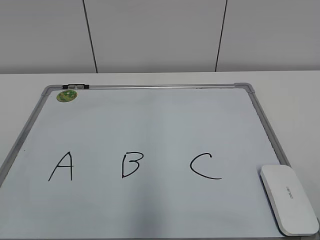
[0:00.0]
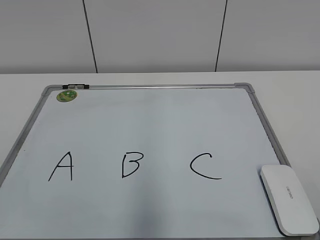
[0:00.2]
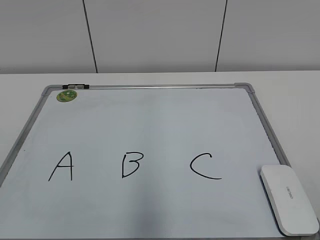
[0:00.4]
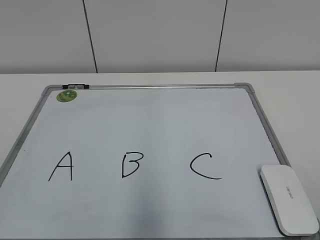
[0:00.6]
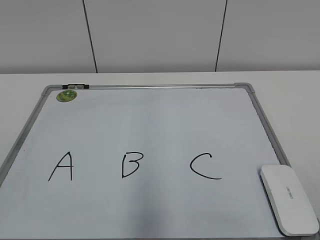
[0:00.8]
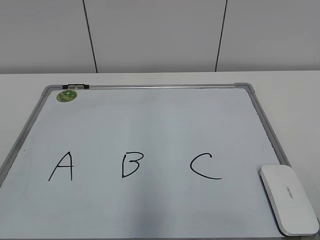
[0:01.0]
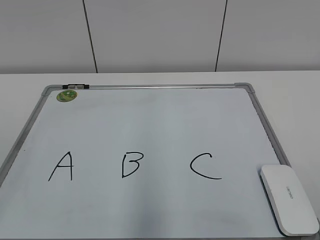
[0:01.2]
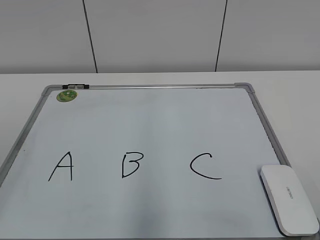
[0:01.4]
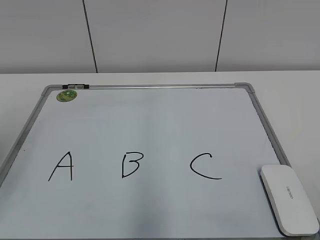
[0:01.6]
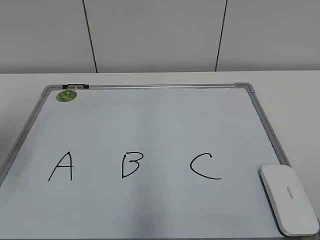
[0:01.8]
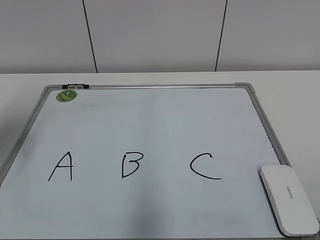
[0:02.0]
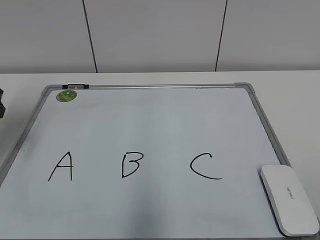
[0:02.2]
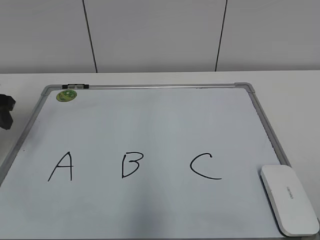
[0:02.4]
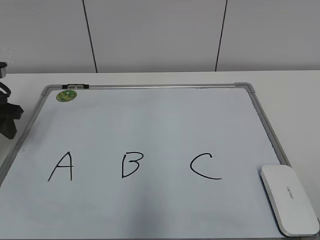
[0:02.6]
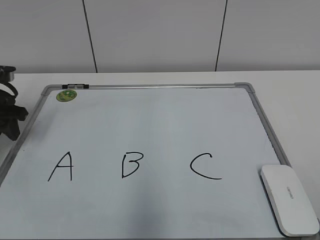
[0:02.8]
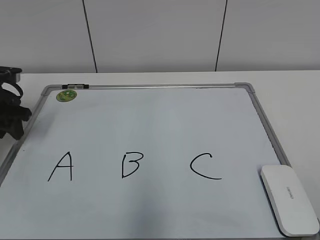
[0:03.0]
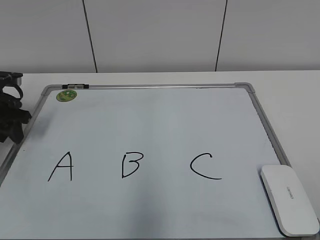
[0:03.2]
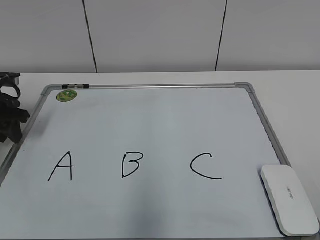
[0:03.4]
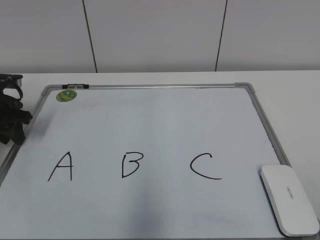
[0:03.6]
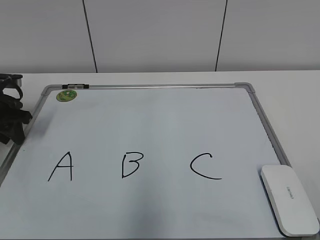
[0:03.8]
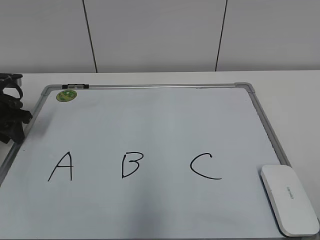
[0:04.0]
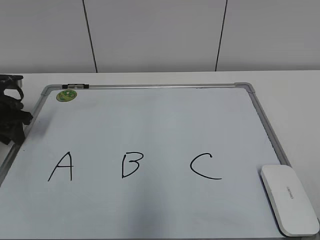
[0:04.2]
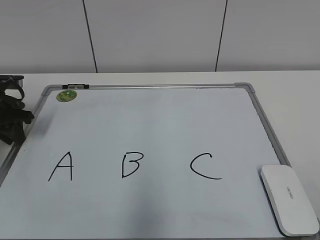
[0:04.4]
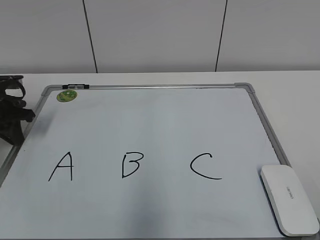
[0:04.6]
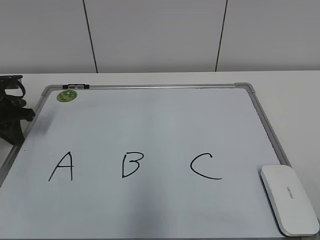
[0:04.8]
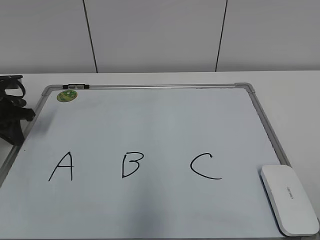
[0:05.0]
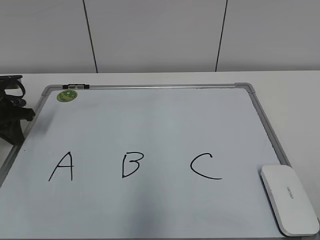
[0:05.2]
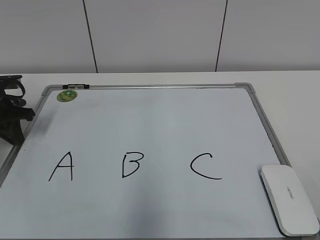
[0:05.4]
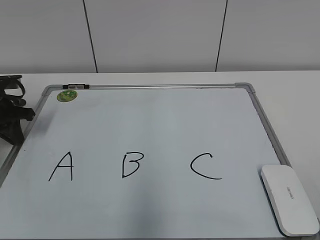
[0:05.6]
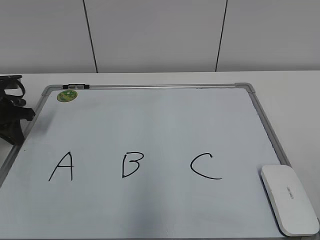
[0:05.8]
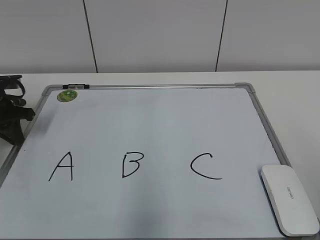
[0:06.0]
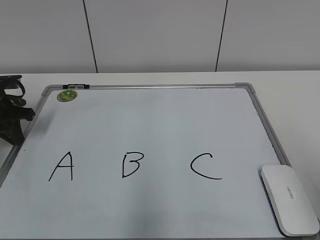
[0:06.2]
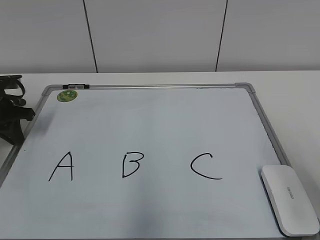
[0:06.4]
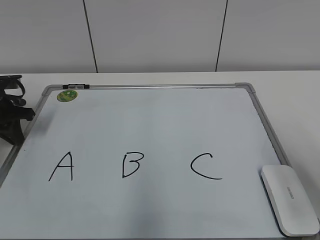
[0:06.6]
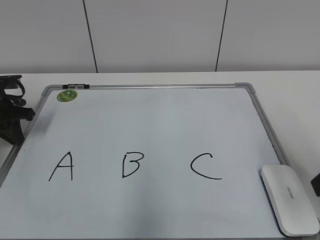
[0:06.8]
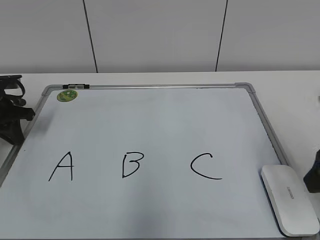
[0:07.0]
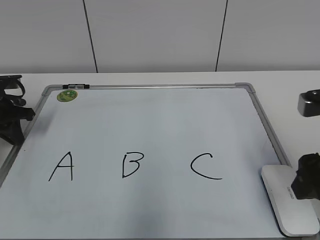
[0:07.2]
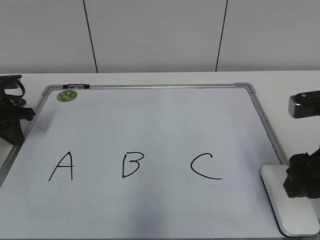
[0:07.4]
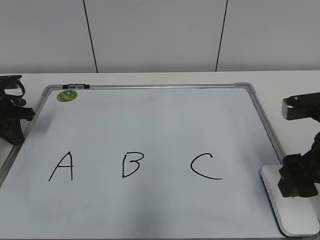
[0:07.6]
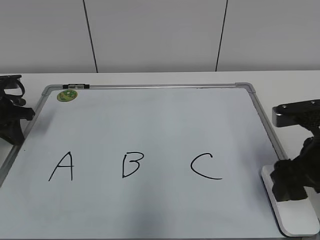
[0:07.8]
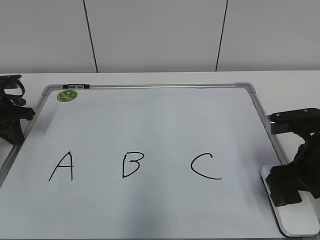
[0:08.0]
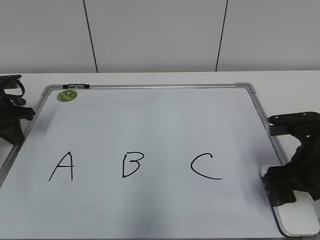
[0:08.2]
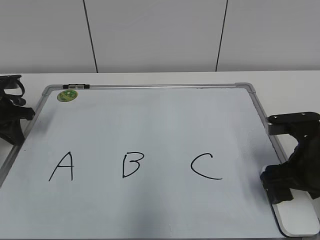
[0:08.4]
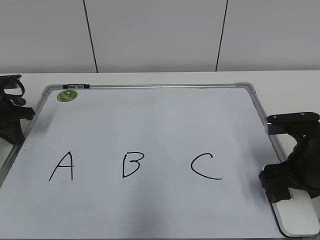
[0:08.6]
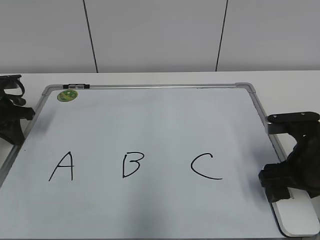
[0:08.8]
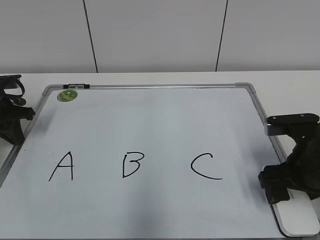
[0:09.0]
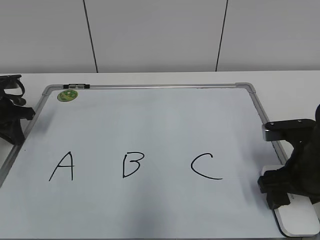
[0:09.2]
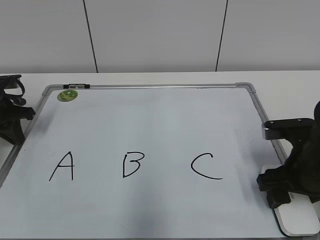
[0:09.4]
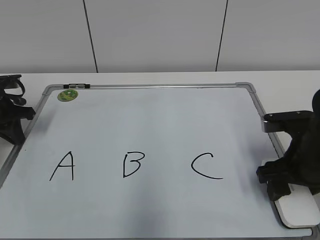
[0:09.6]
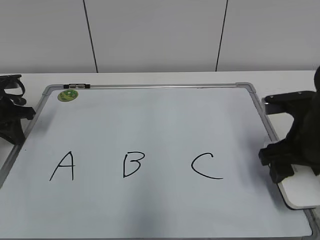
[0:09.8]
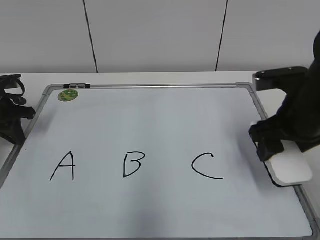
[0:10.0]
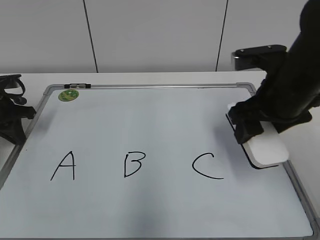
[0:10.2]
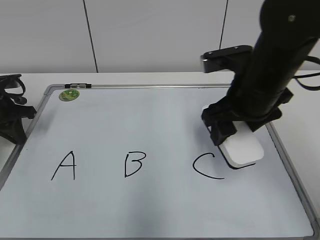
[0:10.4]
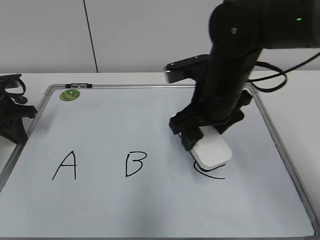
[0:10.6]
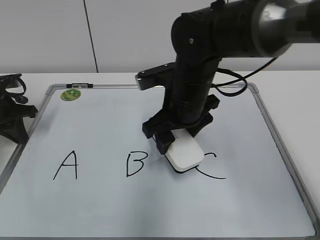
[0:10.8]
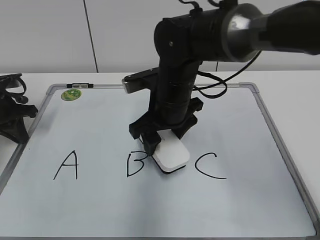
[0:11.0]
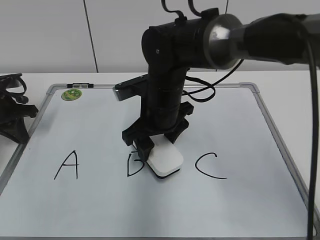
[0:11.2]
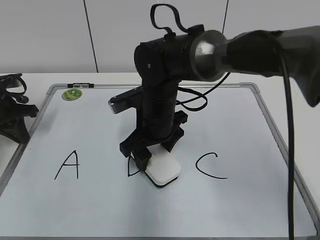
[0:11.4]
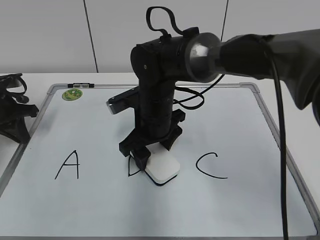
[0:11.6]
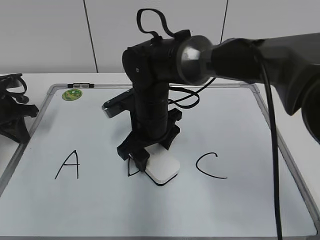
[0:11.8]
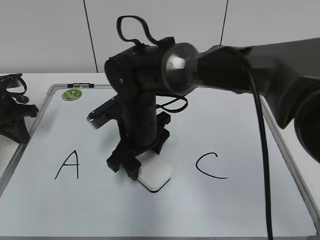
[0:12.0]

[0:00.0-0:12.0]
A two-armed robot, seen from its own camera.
Task of the whole recording: pick up the eraser on the blackboard and erase the letter "B".
Step, 0:05.4 to 0:09.2: Grab the eraser with your right hand.
0:01.6 to 0:03.0: The left gripper shifts roughly 25 cm forward and downward, and closes its fingers.
0:03.0 to 0:04.4: The grippers move only a little.
0:06.0 to 0:07.6: The right gripper is displaced forward and downward by approximately 20 cm.
0:07.6 to 0:09.0: The right gripper travels downward by roughly 5 cm.
0:09.0 to 0:10.4: The right gripper is displaced upward, to the left and forward by about 15 cm.
0:10.4 to 0:12.0: The right gripper travels to the left and downward by some 20 cm.

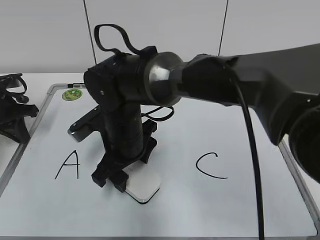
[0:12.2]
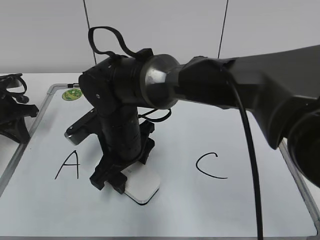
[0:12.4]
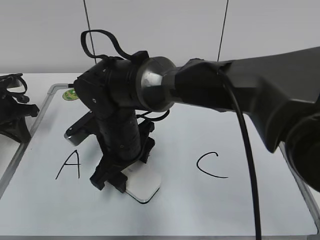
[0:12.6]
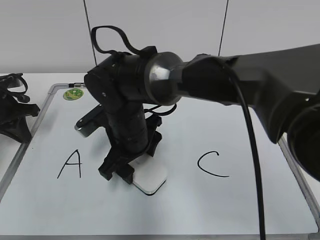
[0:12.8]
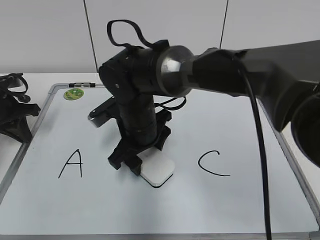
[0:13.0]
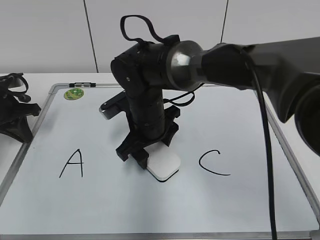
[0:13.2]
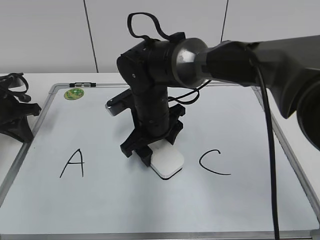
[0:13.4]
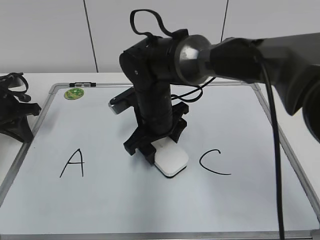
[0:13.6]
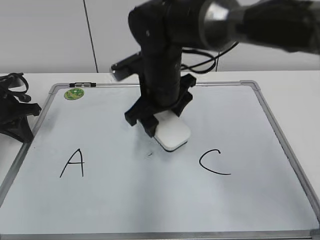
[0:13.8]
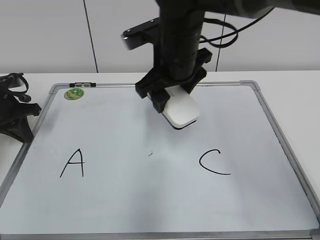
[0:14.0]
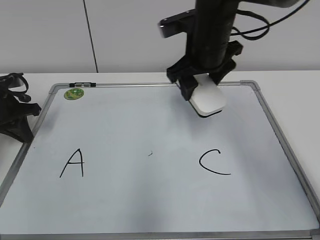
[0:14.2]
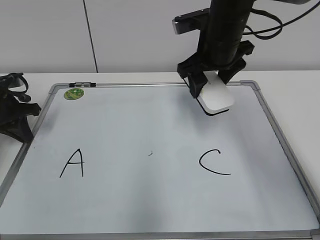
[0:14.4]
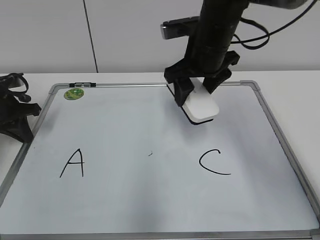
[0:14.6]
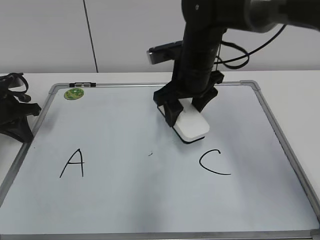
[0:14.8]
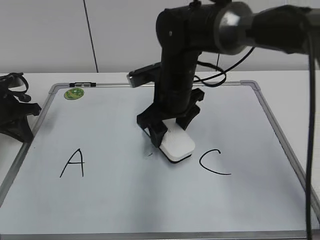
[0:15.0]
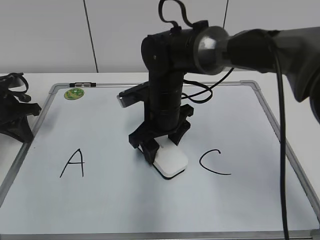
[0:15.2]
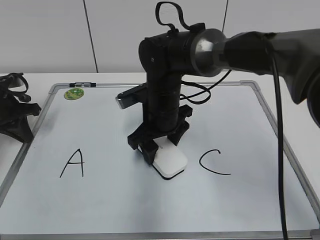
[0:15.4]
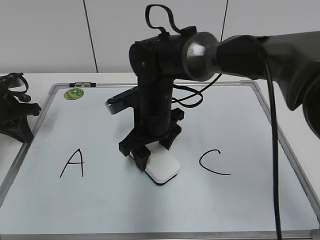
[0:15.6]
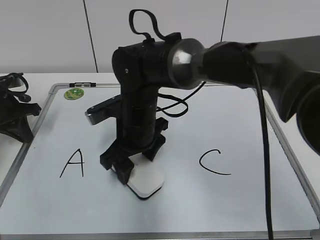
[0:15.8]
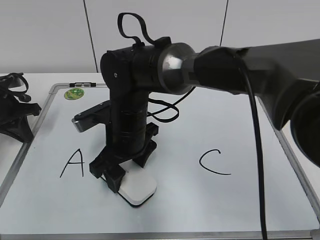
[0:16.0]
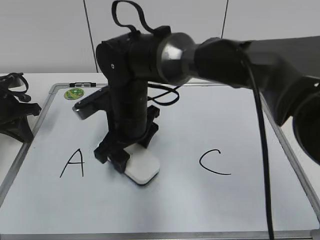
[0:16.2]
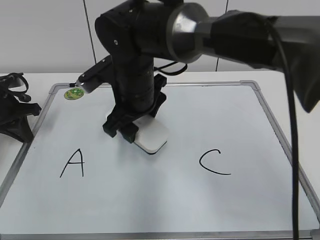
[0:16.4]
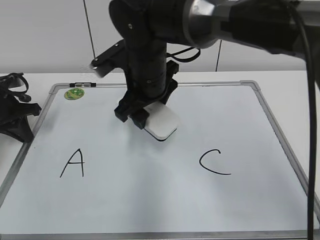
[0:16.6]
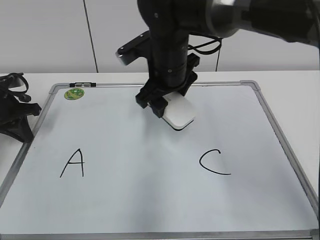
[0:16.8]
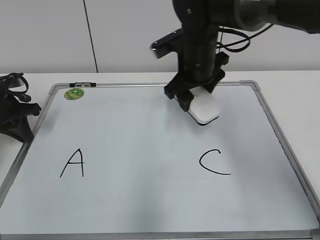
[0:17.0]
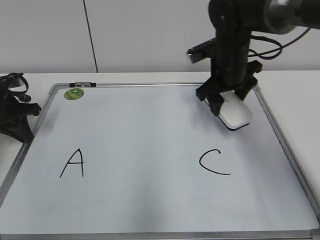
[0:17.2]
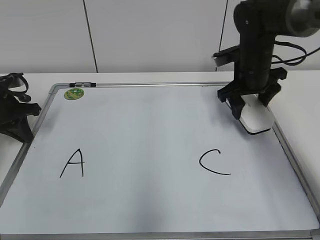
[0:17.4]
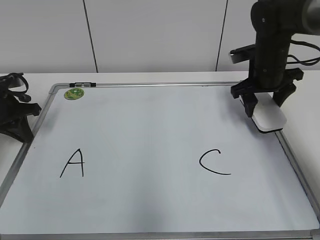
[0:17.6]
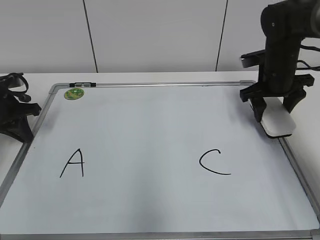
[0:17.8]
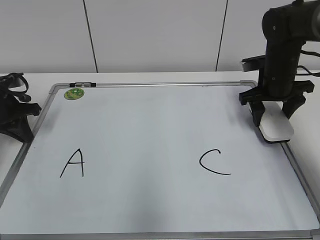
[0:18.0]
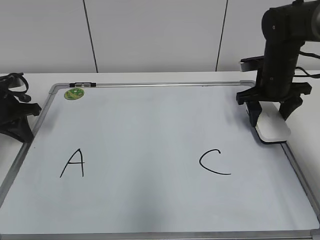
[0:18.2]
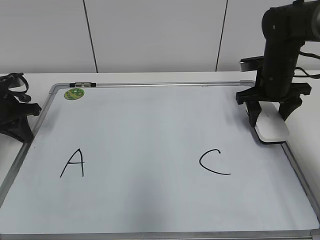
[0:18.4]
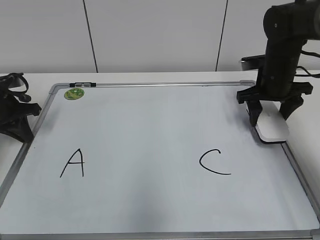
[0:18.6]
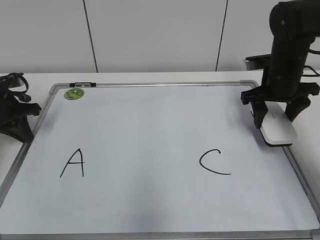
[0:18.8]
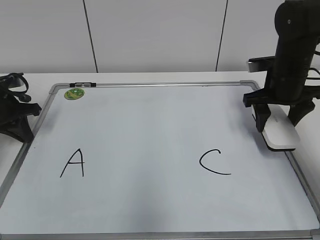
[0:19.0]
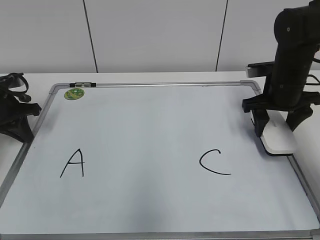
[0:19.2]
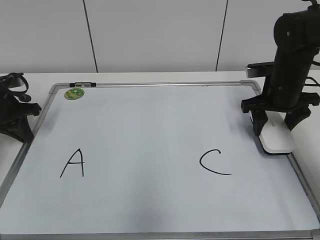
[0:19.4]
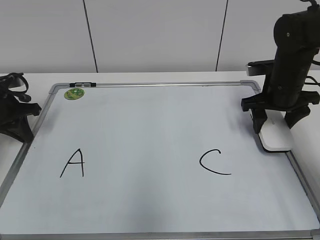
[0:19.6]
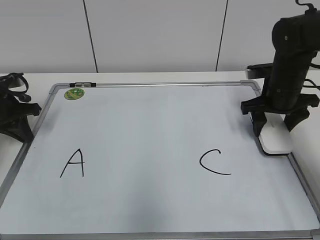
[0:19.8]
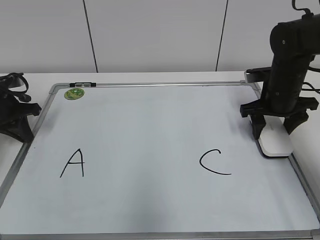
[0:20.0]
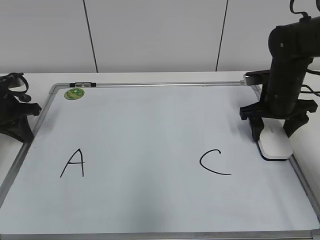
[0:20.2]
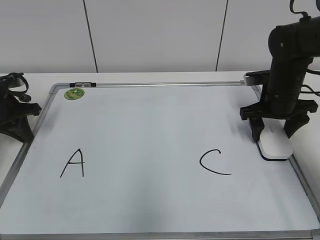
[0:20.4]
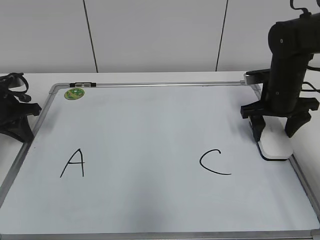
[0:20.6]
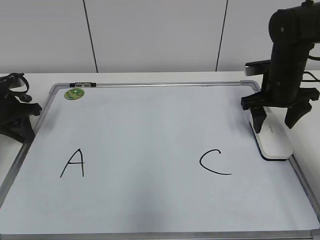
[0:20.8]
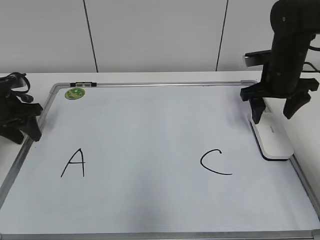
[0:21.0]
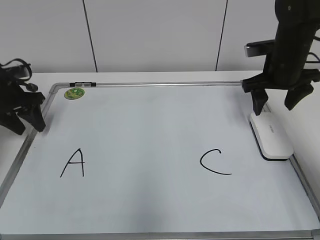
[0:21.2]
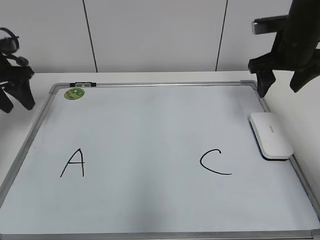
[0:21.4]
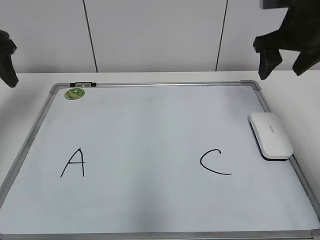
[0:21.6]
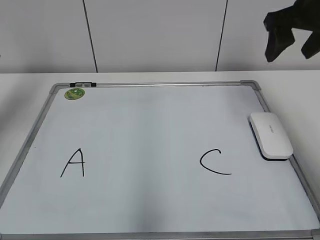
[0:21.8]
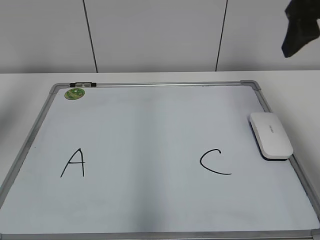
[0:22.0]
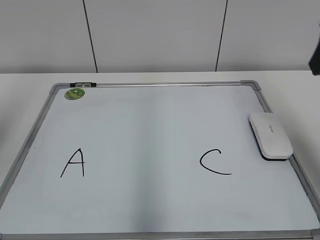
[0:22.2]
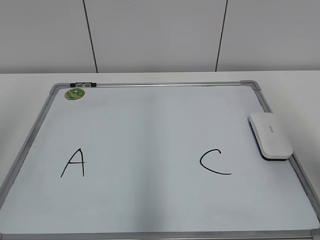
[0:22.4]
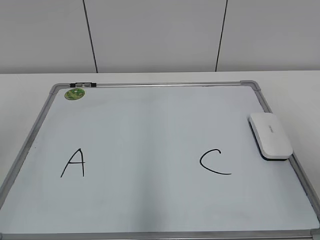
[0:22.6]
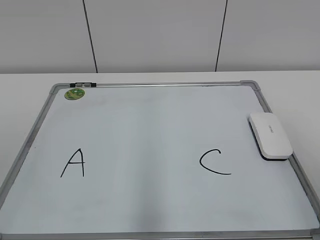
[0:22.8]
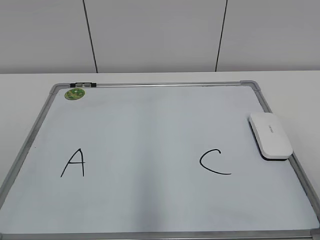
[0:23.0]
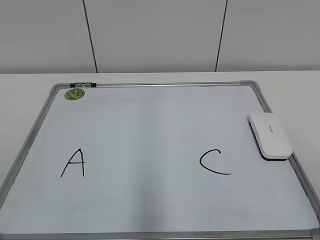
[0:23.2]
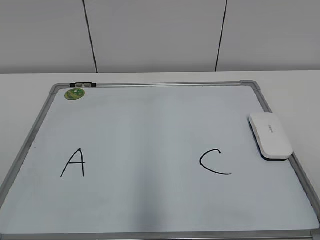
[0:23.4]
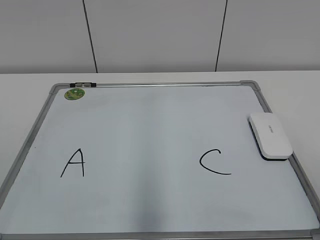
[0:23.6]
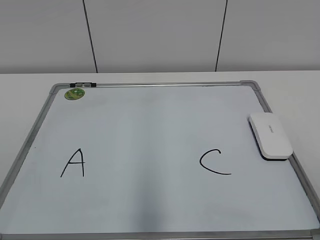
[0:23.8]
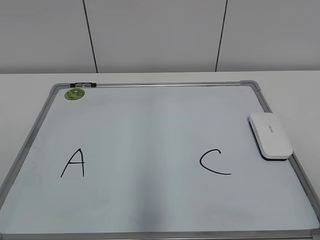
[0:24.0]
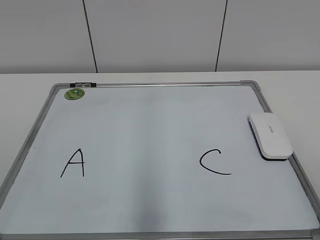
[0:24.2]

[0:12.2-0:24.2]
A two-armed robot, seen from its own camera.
Task of the whole recording: pick up the eraser on the blackboard and erase the letter "B".
Step, 0:12.2 to 0:16.0: Erase the letter B with your right hand.
Step, 0:16.2 to 0:20.2: Put down the eraser with your right hand.
0:12.2 to 0:13.8: The right gripper goes roughly 10 cm to the right and upward.
0:15.2 to 0:16.6: The right gripper moves upward, roughly 5 cm.
0:16.6 to 0:18.2: The right gripper travels to the right by some 25 cm.
0:18.2 to 0:19.8: There are only small adjustments of the grippers.
0:19.8 to 0:21.2: The left gripper opens its fingers.
0:21.2 to 0:22.6: The two grippers go approximately 35 cm backward and upward.
